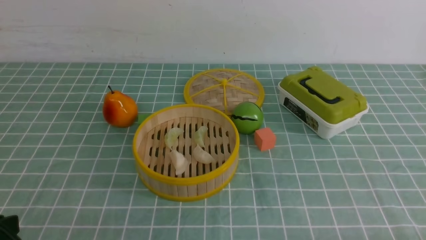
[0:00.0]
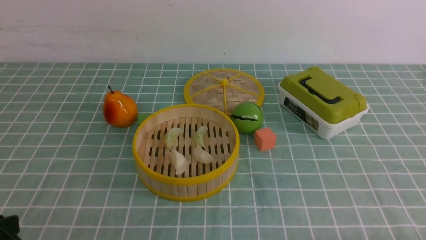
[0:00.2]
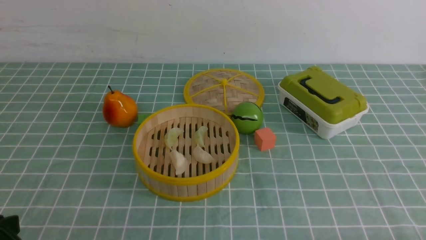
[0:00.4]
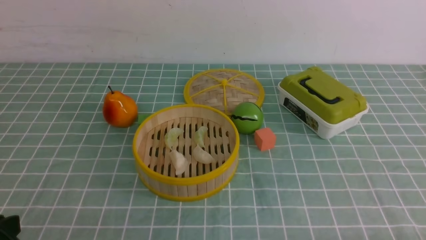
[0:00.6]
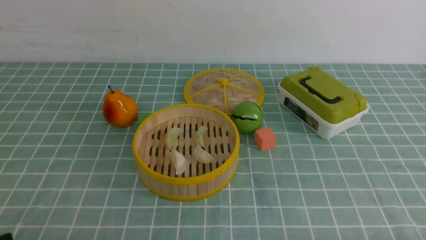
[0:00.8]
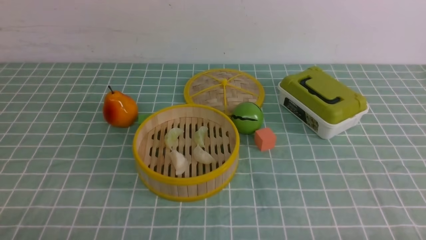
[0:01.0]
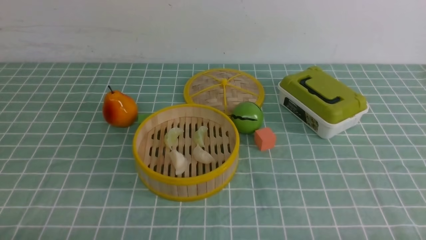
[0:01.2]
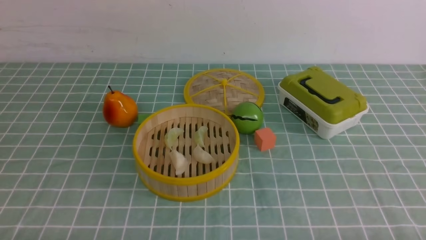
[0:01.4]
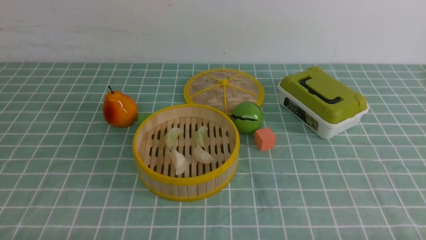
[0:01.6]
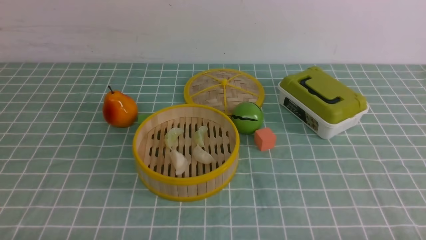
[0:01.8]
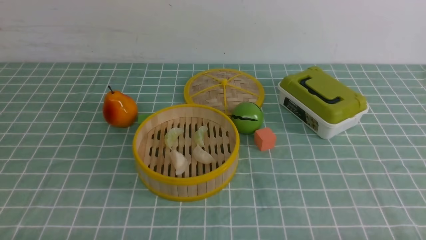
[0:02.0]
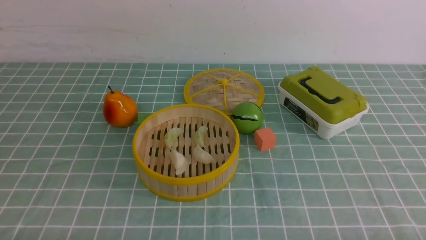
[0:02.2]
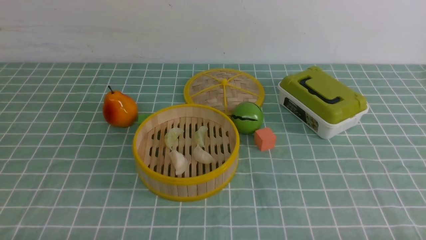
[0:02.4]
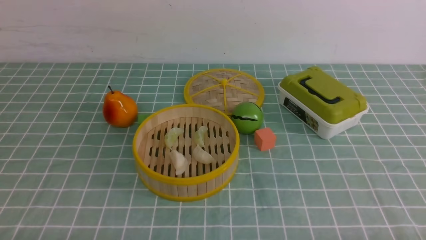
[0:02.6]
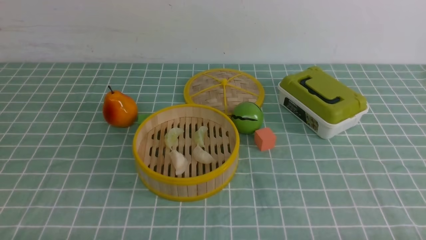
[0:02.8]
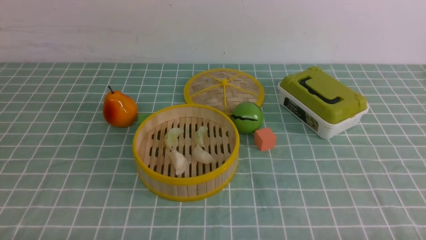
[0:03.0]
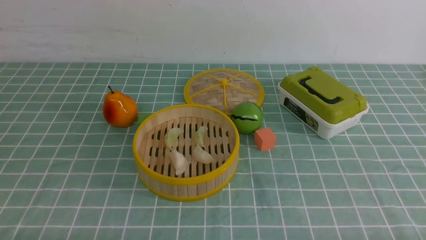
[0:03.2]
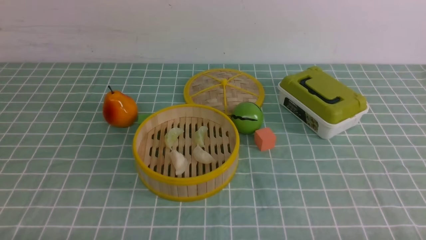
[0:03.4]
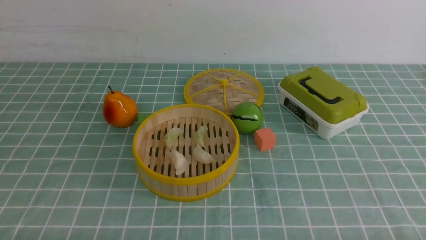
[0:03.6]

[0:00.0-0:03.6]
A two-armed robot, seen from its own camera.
Task of the whole recording: put the dumplings into the steamer on the table with the blue tablecloth.
0:01.8 to 0:03.6: Both grippers stay about where they are.

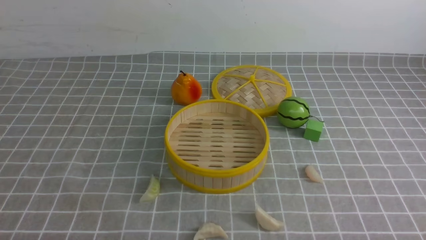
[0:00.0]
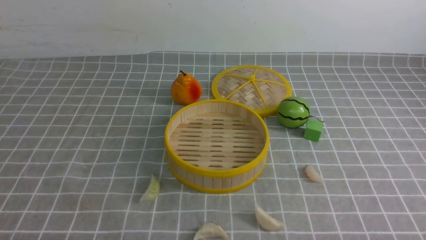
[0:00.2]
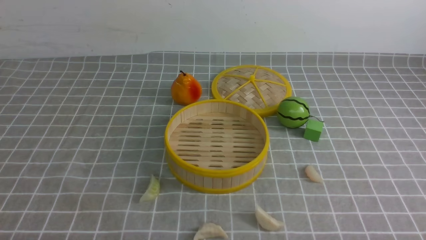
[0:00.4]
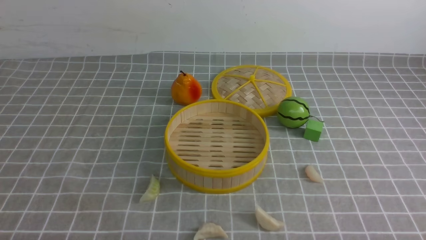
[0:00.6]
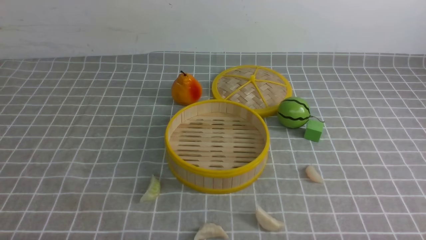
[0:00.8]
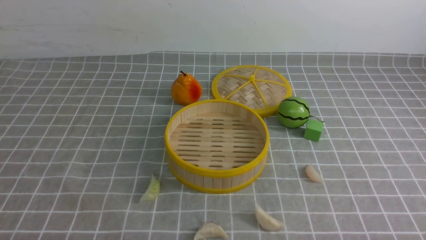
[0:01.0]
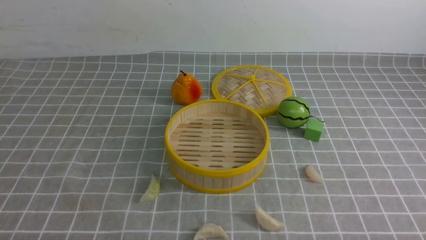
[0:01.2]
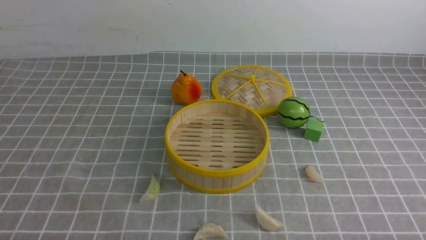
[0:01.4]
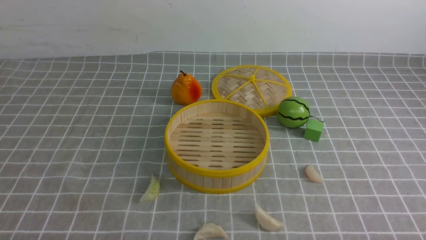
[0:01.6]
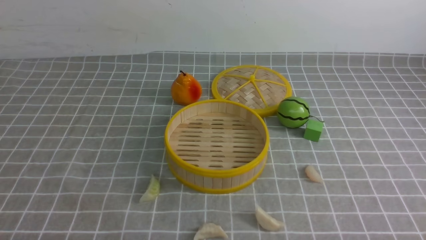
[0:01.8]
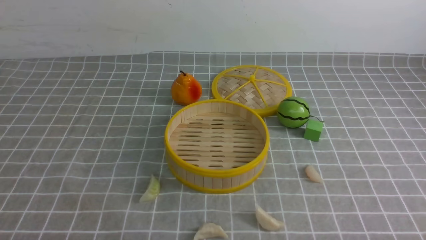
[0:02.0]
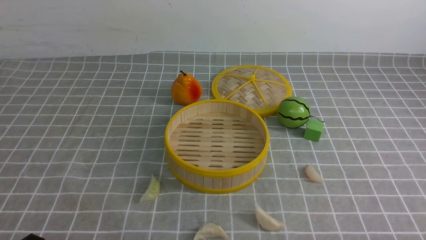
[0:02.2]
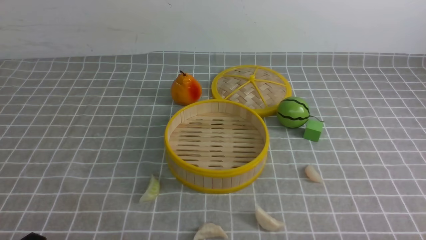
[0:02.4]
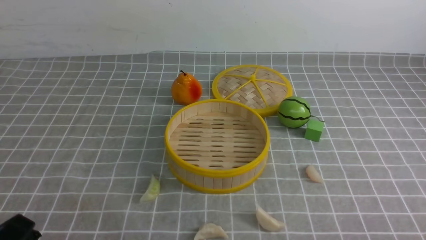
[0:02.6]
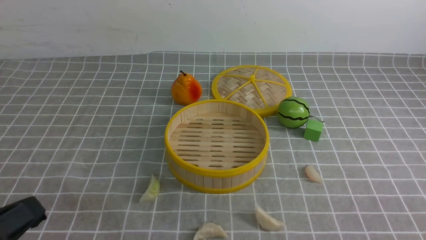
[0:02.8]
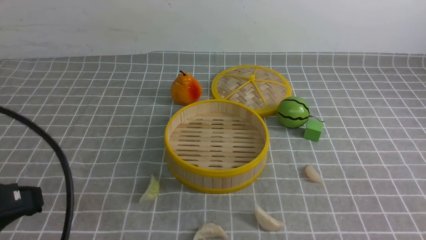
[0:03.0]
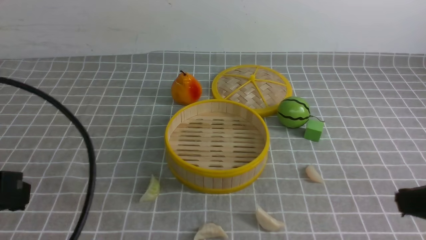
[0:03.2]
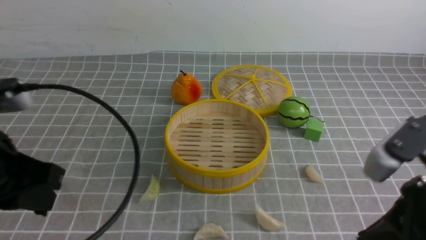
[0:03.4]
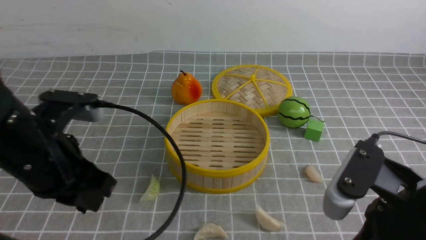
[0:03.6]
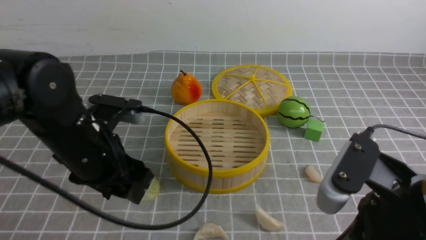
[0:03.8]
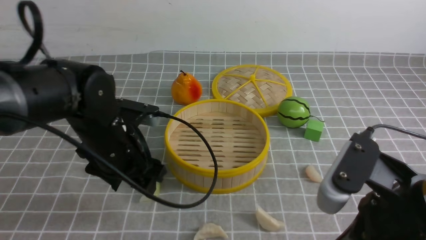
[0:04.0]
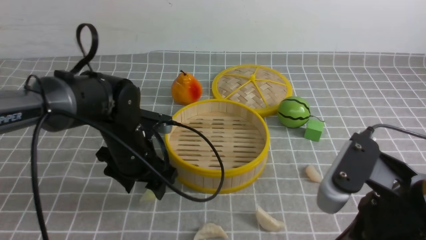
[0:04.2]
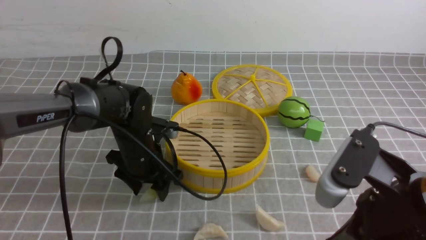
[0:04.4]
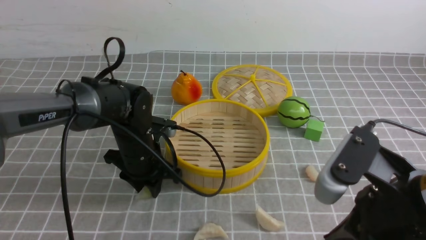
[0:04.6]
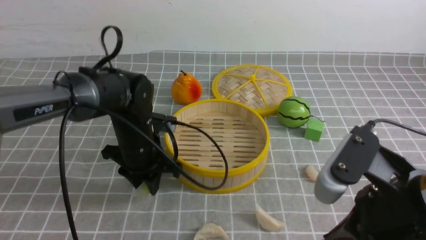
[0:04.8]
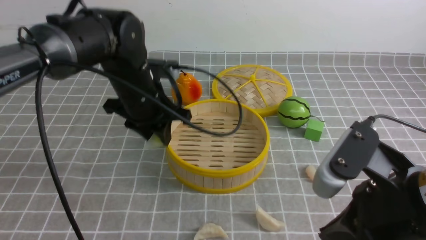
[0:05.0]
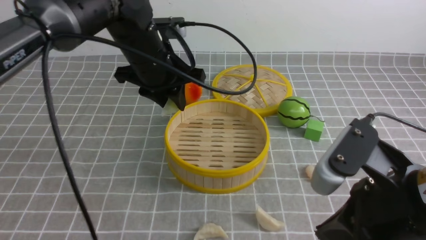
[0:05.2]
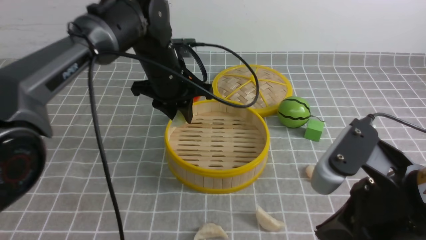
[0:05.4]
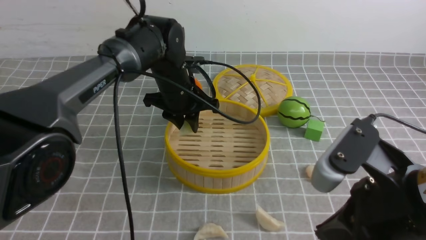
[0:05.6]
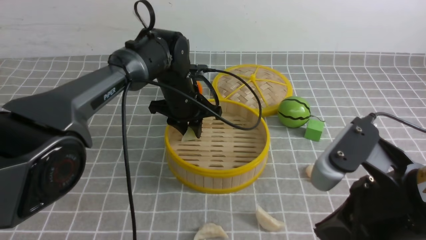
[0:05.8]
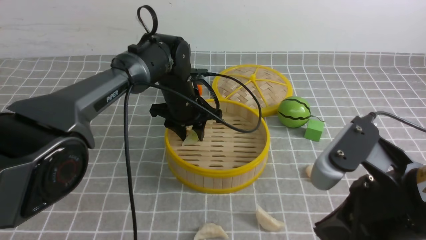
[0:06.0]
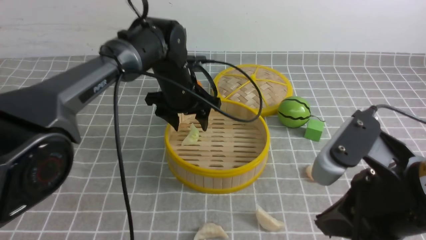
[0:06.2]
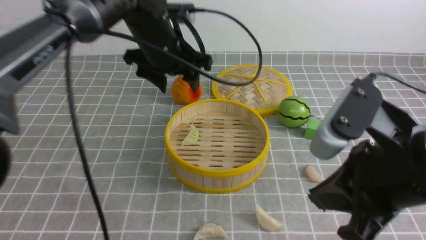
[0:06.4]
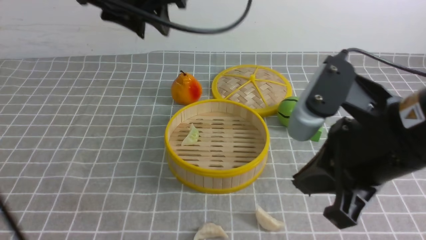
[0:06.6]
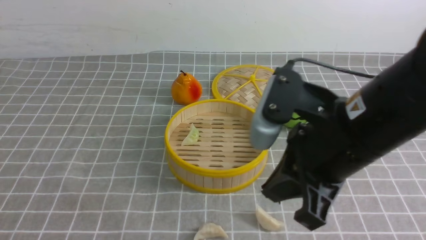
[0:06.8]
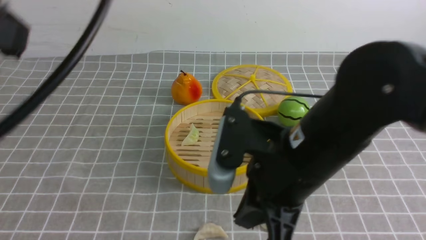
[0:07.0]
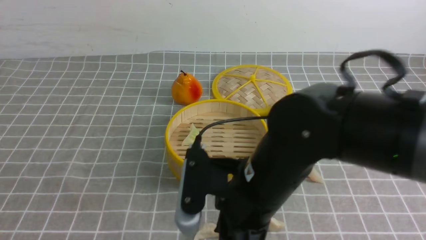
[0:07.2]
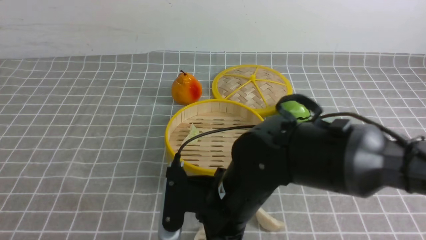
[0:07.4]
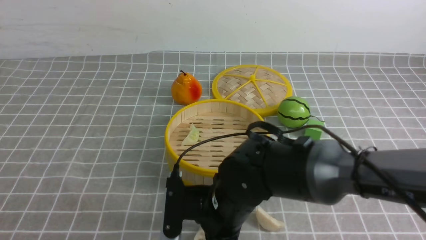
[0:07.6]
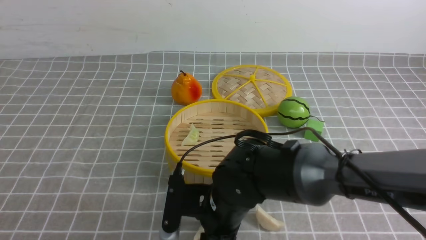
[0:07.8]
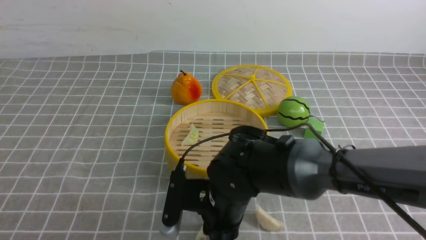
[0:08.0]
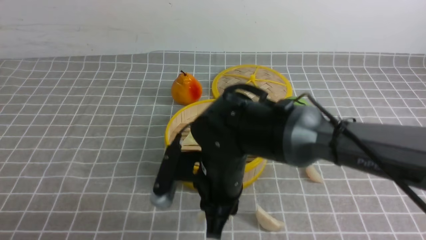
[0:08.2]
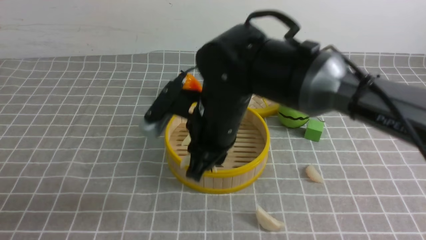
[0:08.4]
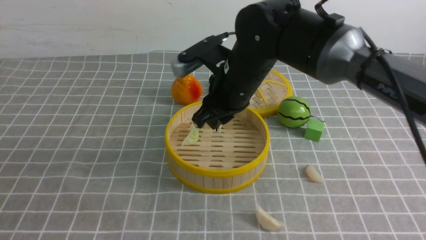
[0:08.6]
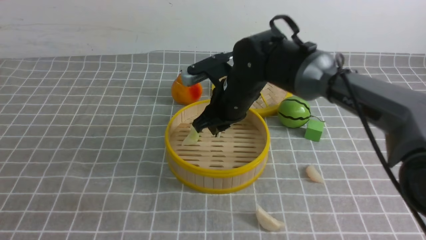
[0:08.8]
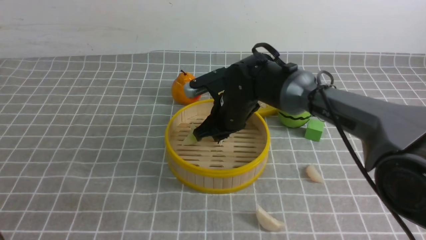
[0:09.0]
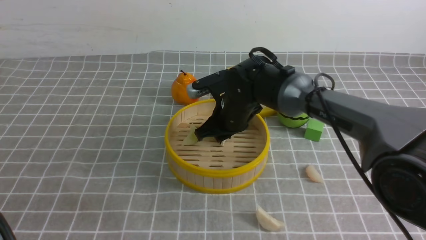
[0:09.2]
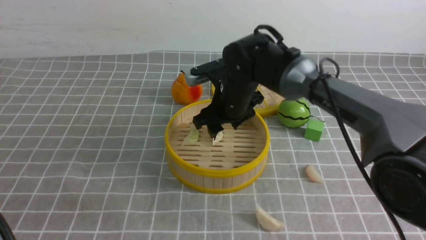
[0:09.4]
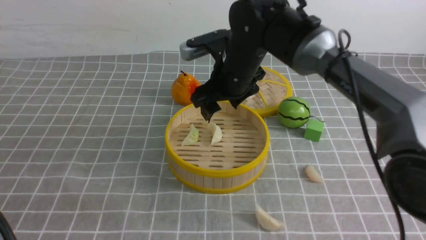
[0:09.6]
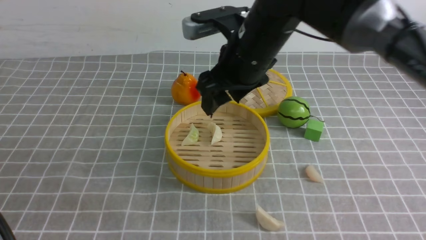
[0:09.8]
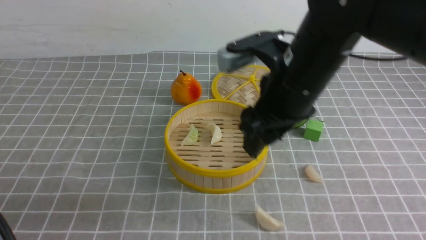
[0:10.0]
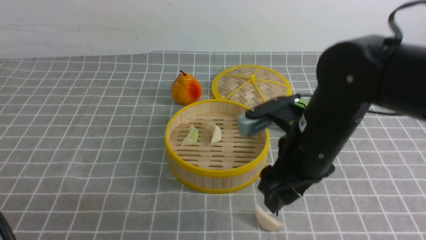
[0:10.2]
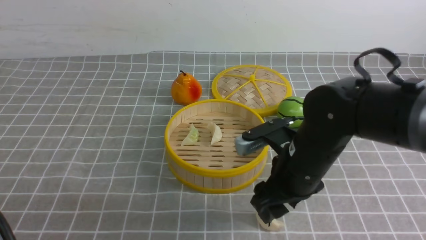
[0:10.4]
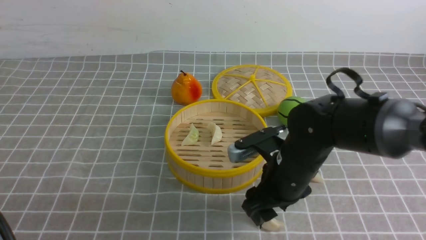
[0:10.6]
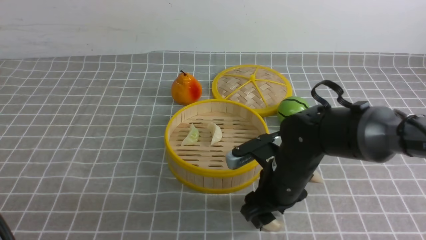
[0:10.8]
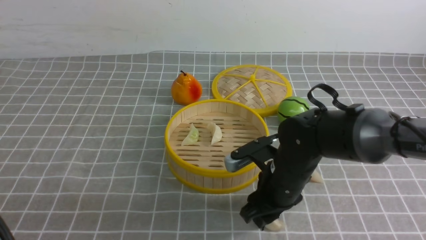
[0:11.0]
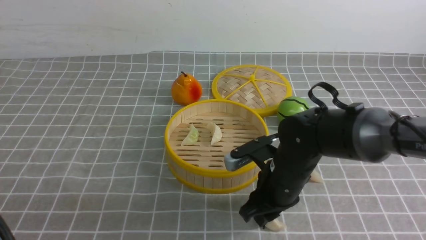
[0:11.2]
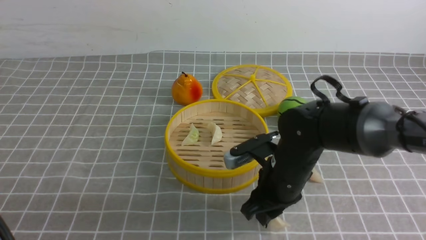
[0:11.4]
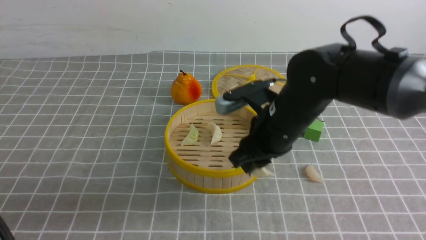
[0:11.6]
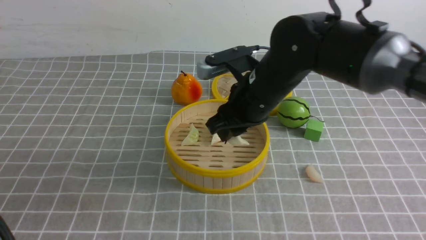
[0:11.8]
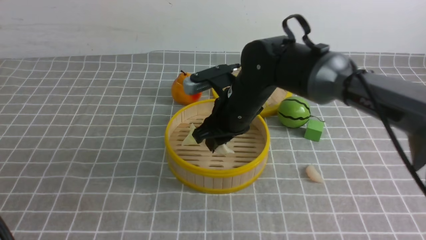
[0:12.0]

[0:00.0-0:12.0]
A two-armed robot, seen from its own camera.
Task of the whole recording: put the dumplings into the steamer on the table with the grey tablecloth.
Step, 0:00.0 to 0:04.8: use the left arm to grab a dumpling.
Step, 0:05.0 to 0:06.2: use the left arm to put the dumpling into the steamer.
Step, 0:06.4 to 0:08.0: use the right arm to grab a dumpling.
Step, 0:08.2 to 0:09.2: use the right arm to put the dumpling into the steamer.
Step, 0:09.4 to 0:11.4: use the right arm to grab a dumpling.
0:01.6 to 0:03.0: The left gripper goes approximately 15 cm upward, and closes up.
0:03.0 to 0:04.4: The left gripper travels forward, downward and to the right by approximately 30 cm, and opens its fingers. The right gripper travels to the left and forward by some 15 cm.
0:04.4 to 0:06.0: The left gripper shifts roughly 10 cm forward and to the right, and goes upward and returns, some 10 cm each way.
0:06.0 to 0:07.6: The right gripper goes approximately 20 cm to the left, downward and forward, and opens. The left gripper is displaced backward, to the left and upward by approximately 50 cm, and closes.
0:07.6 to 0:09.0: The right gripper heads forward, covering roughly 20 cm, and closes its fingers.
0:09.0 to 0:10.4: The right gripper shifts some 15 cm backward and to the right, and opens its fingers.
0:10.4 to 0:12.0: The right gripper heads forward and to the left, covering about 10 cm, reaches approximately 10 cm downward, then returns, and closes up.

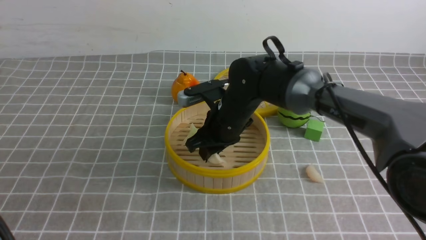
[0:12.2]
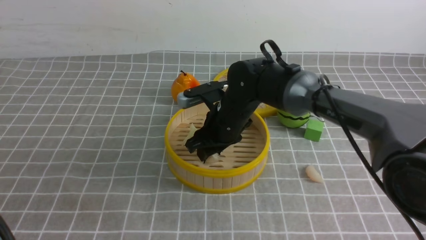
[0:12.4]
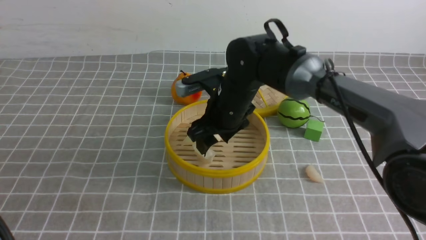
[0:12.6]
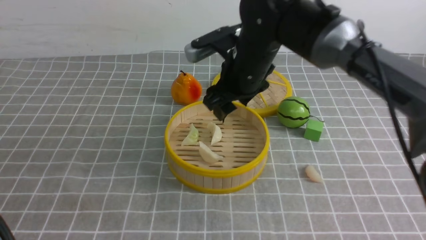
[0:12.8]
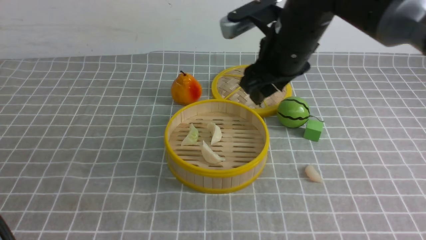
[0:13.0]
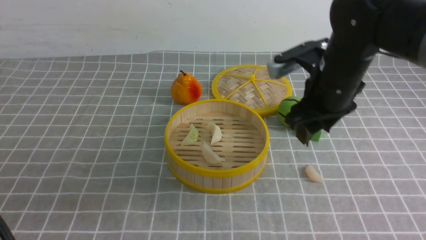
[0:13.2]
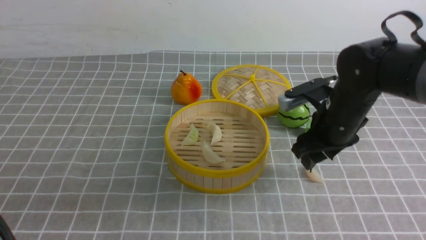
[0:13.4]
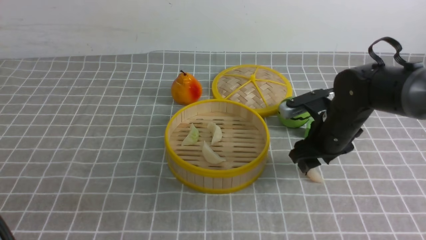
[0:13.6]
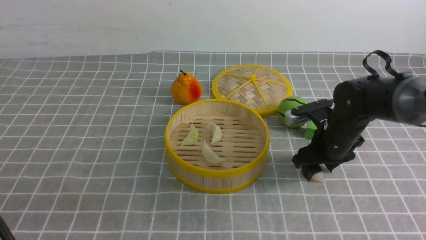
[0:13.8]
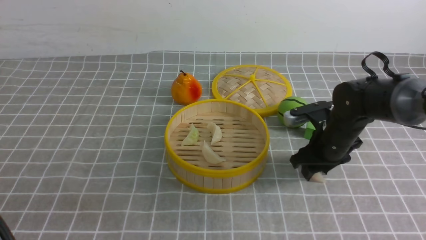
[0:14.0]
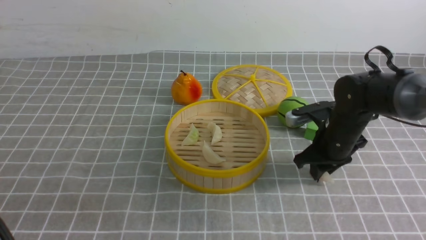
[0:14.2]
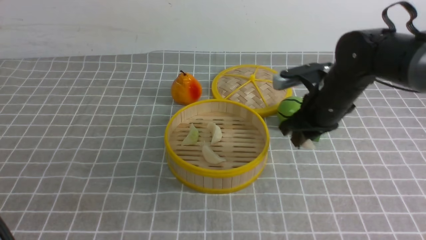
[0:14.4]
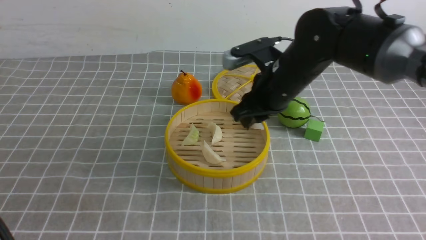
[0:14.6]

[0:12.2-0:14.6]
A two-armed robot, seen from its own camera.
Task of the whole recording: put the dumplings into the steamer on the table with the grey tablecloth.
Step, 0:12.8 to 0:14.2: use the right arm to grab a dumpling.
0:12.2 to 0:13.4: The right gripper moves to the right, some 15 cm, and opens.
0:13.4 to 0:14.6: The right gripper travels downward and back again, roughly 10 cm each way, and closes.
